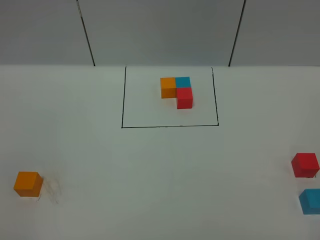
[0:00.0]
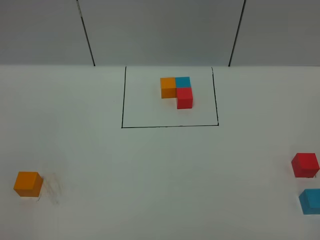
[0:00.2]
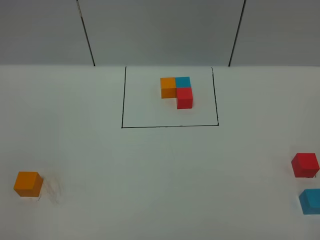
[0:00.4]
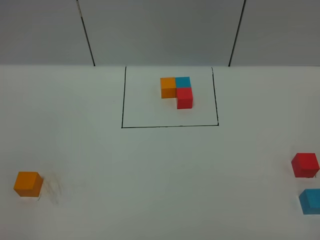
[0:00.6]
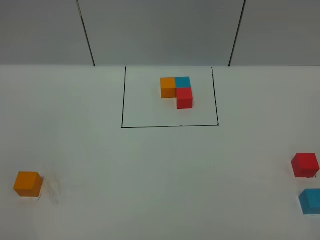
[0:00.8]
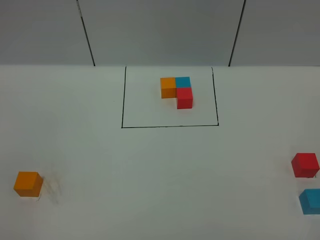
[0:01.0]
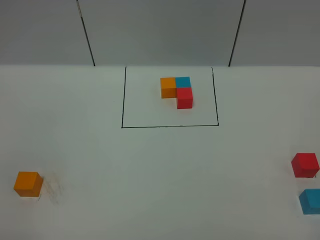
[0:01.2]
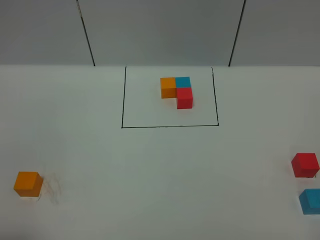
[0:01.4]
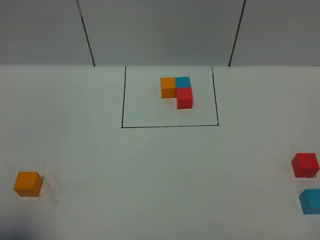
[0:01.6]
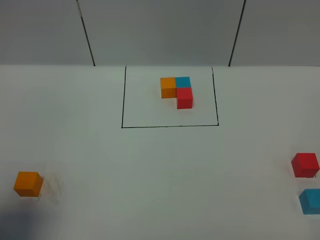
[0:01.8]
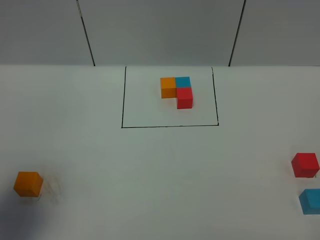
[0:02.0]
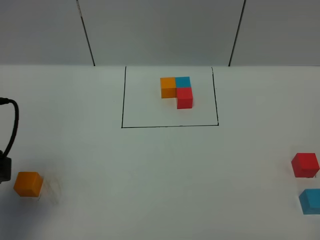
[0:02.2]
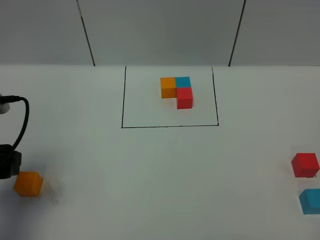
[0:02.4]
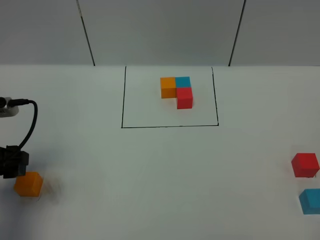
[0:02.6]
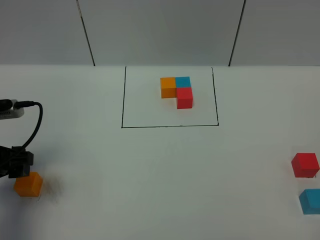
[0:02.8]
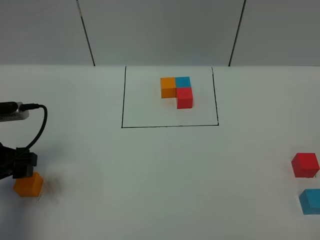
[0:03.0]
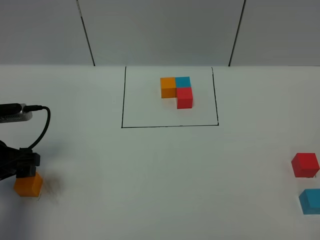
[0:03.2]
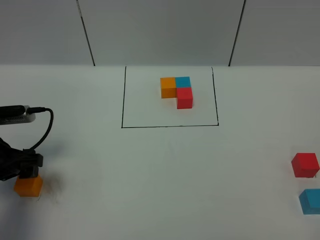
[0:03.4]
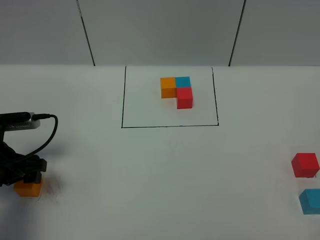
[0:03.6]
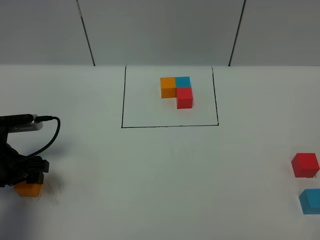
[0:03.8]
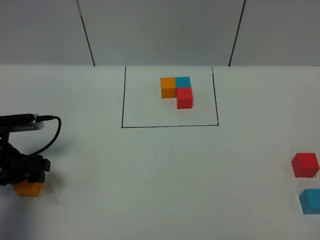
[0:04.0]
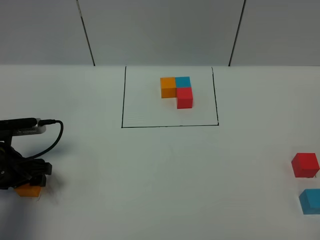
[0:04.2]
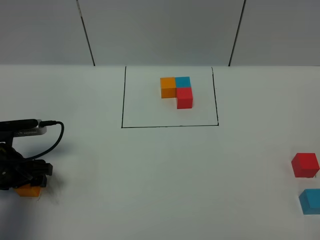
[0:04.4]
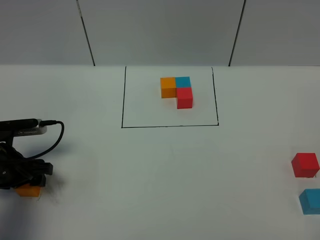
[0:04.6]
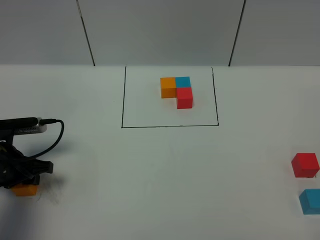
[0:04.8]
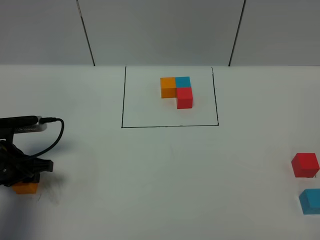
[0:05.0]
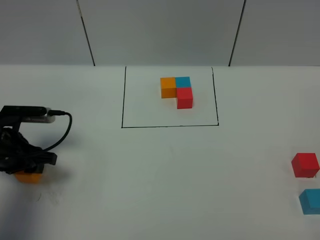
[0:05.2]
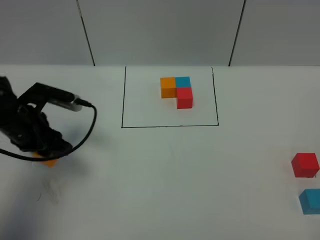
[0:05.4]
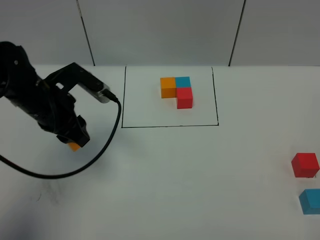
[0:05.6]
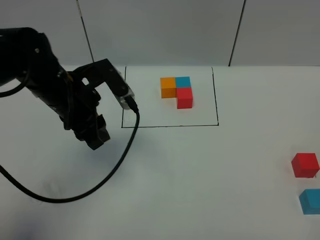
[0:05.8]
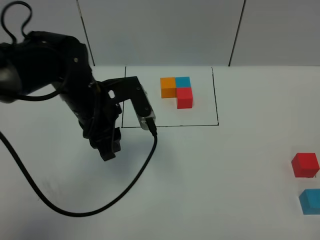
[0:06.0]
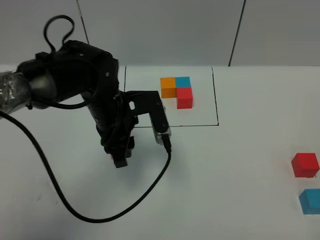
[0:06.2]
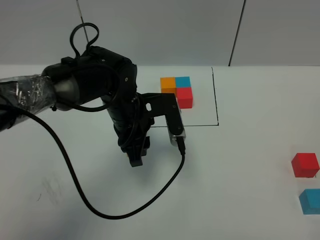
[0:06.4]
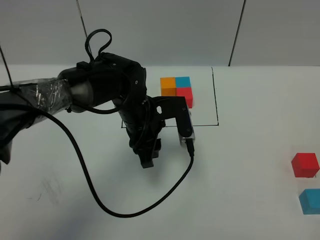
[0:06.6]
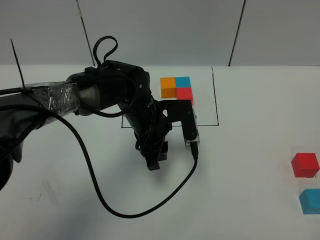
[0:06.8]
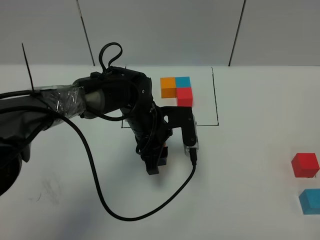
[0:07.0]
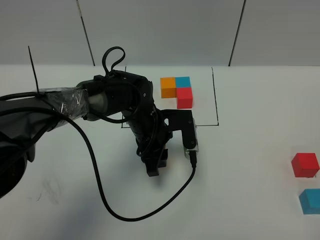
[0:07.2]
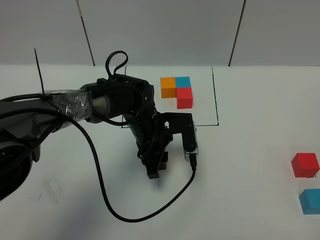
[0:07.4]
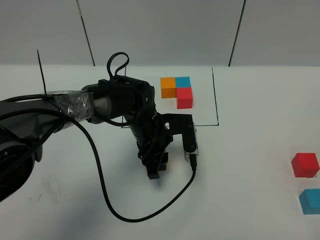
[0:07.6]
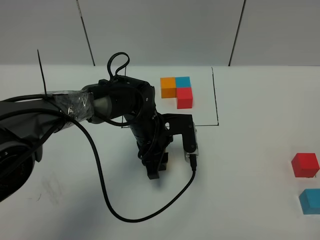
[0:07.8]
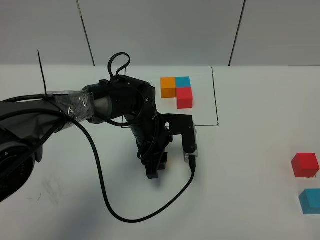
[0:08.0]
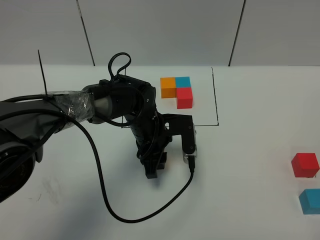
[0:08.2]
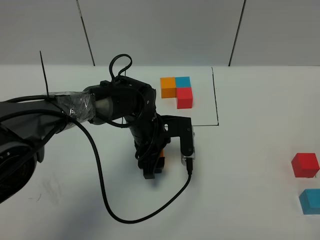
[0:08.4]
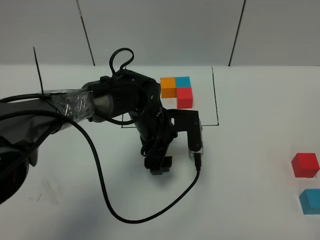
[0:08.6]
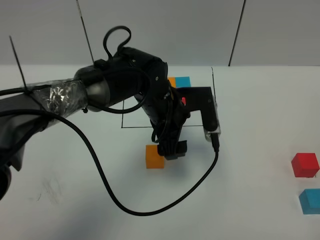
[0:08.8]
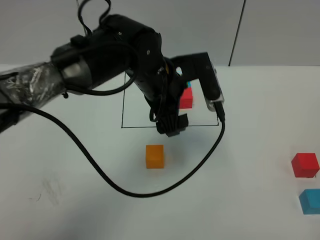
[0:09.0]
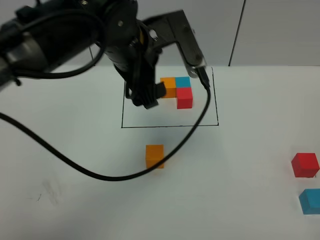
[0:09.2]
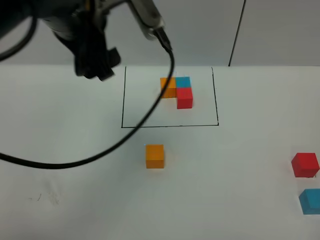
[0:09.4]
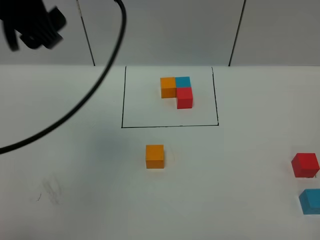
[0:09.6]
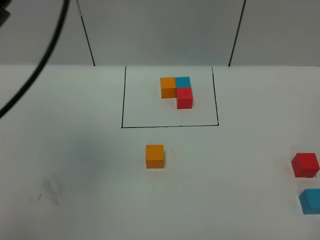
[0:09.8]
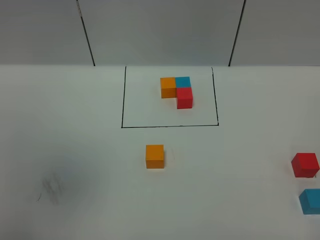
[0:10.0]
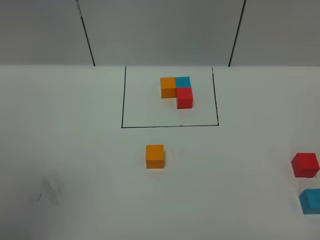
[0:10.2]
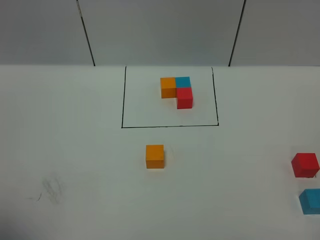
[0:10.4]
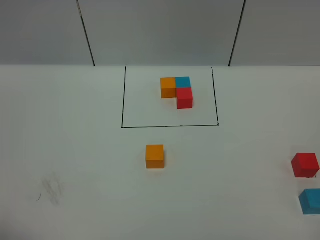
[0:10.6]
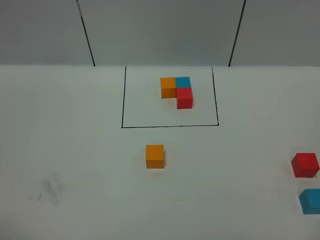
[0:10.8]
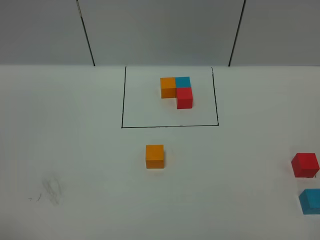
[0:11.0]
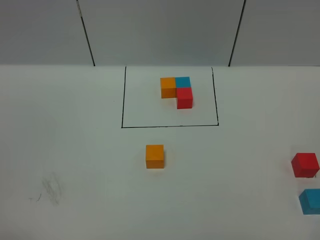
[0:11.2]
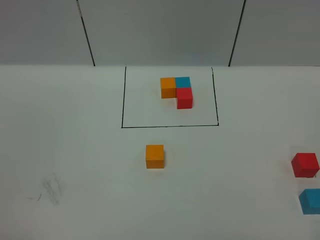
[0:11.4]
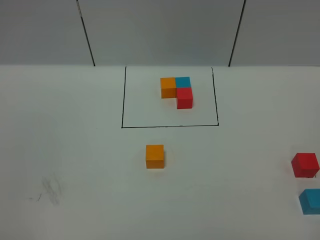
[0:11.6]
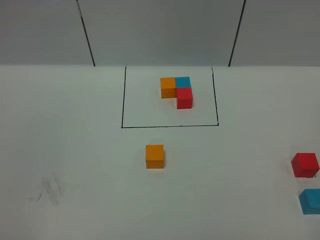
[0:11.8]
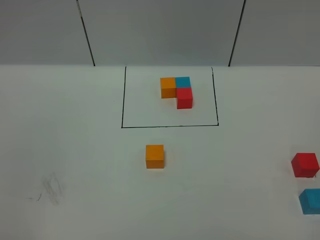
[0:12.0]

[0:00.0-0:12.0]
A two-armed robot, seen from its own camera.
Task of the whole recording: According to the building block template in front, assemble the scattered blocks together.
Step, 0:02.0 to 0:08.4: Put the orange cube in the center of the table.
0:00.0 to 0:01.6: The left gripper goes about 10 cm forward.
0:01.6 to 0:03.0: The left gripper heads forward and downward, covering some 20 cm.
0:03.0 to 0:04.4: The left gripper heads downward, covering some 5 cm.
0:04.4 to 0:06.0: The left gripper is displaced to the right and upward by about 20 cm, and closes its fingers.
0:06.0 to 0:07.6: The left gripper shifts approximately 15 cm downward and to the right.
0:07.6 to 0:09.0: The left gripper is displaced upward by approximately 15 cm, and opens up.
0:09.0 to 0:10.4: The left gripper moves to the left, backward and upward, about 50 cm.

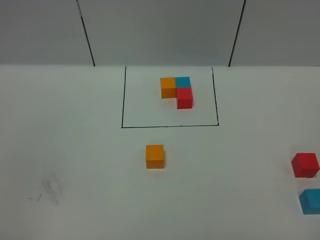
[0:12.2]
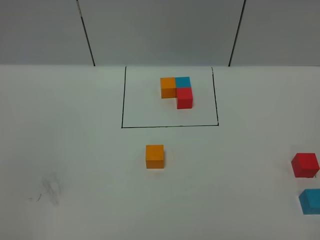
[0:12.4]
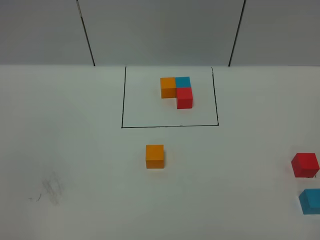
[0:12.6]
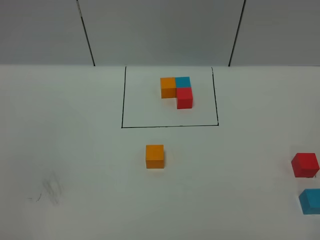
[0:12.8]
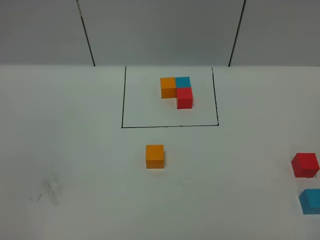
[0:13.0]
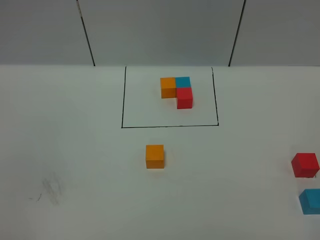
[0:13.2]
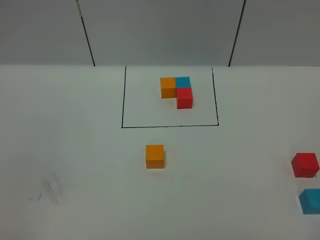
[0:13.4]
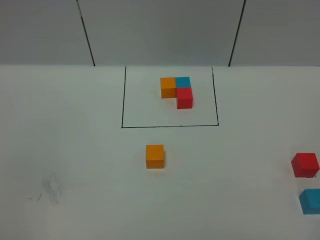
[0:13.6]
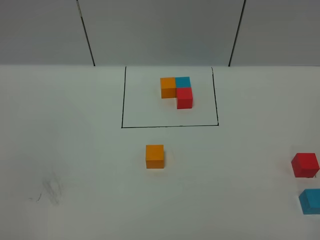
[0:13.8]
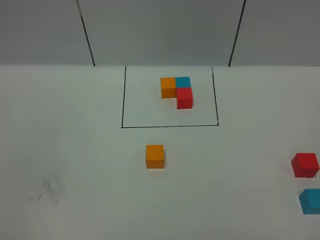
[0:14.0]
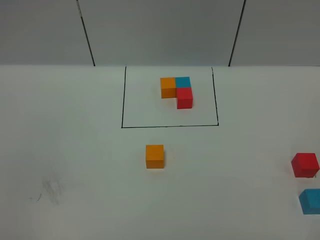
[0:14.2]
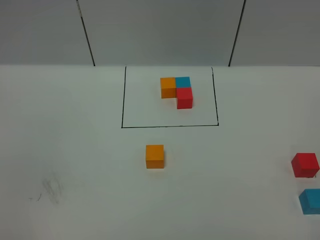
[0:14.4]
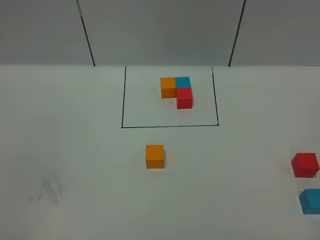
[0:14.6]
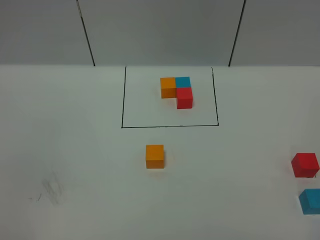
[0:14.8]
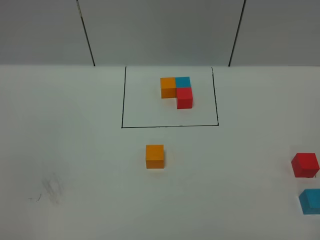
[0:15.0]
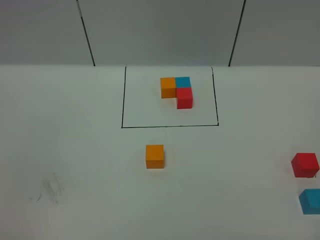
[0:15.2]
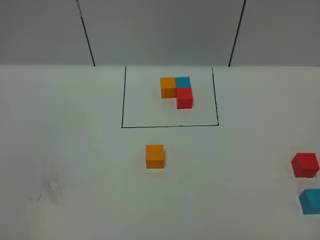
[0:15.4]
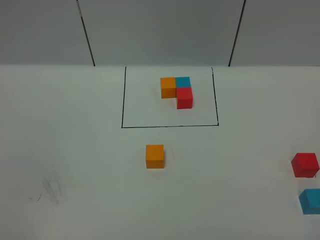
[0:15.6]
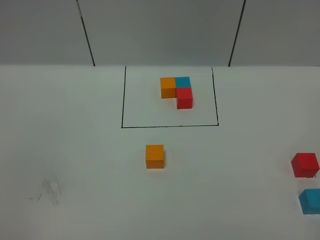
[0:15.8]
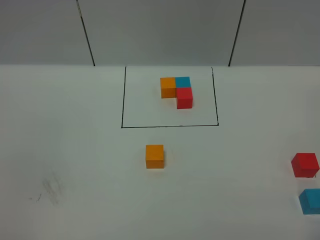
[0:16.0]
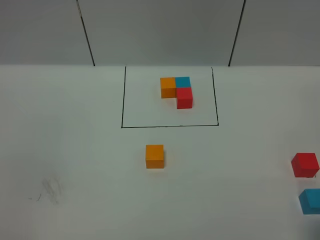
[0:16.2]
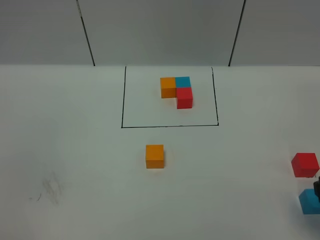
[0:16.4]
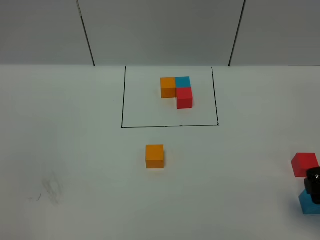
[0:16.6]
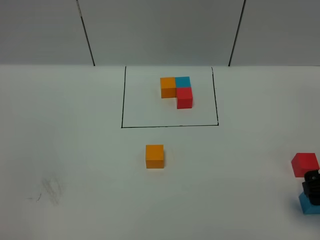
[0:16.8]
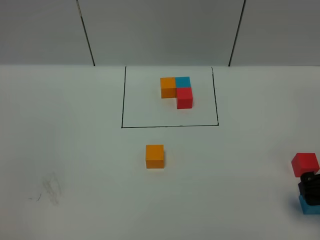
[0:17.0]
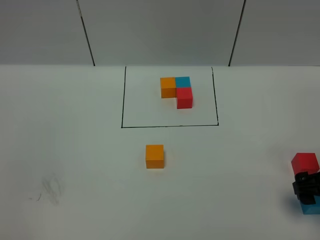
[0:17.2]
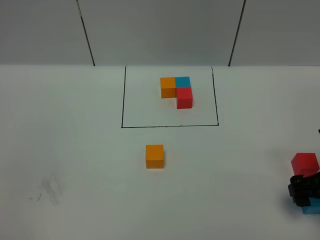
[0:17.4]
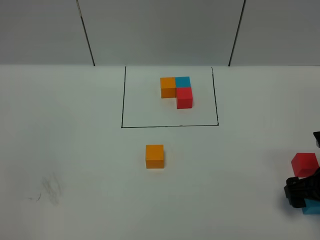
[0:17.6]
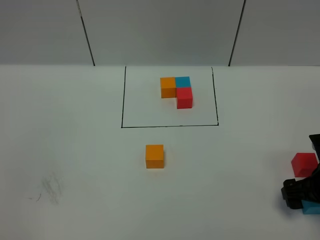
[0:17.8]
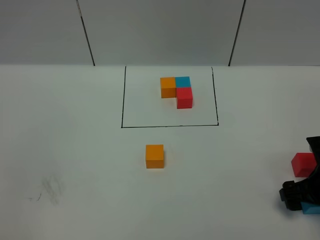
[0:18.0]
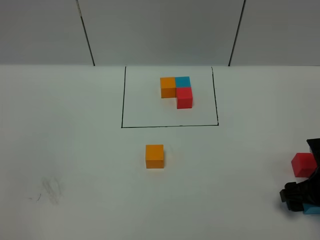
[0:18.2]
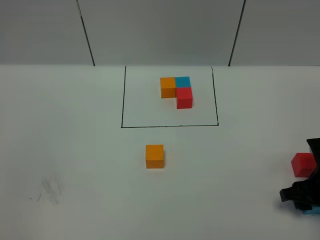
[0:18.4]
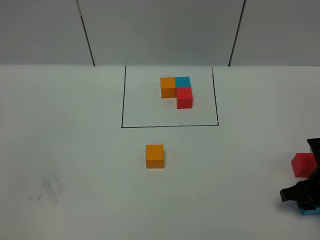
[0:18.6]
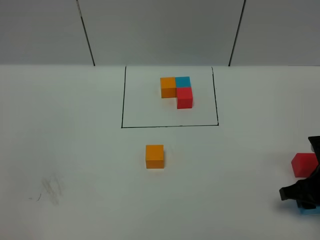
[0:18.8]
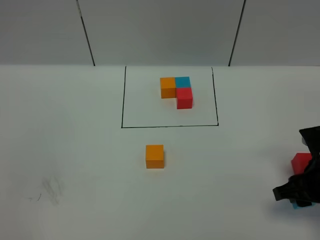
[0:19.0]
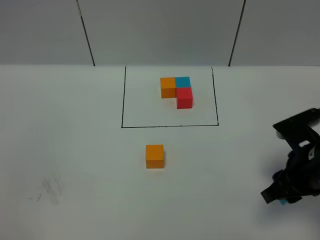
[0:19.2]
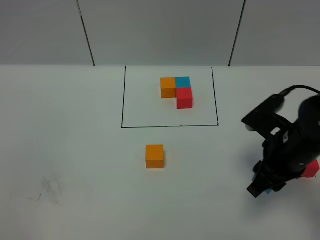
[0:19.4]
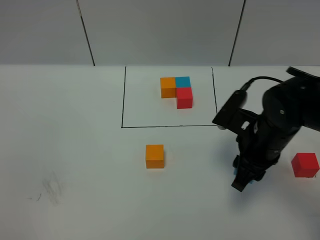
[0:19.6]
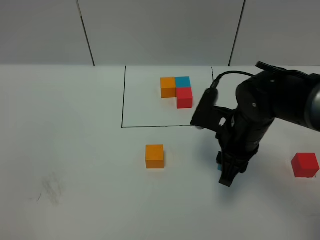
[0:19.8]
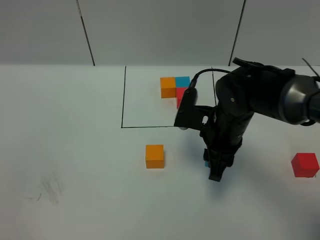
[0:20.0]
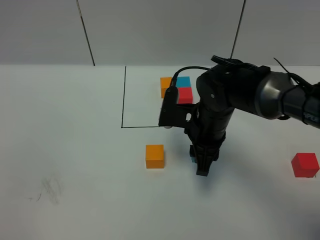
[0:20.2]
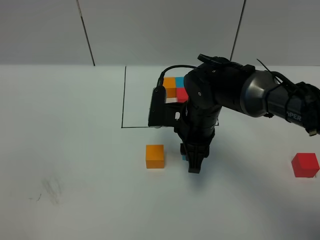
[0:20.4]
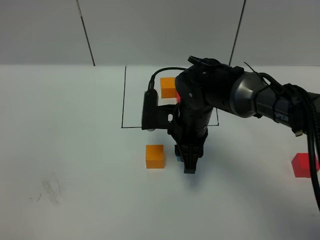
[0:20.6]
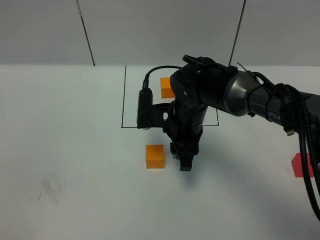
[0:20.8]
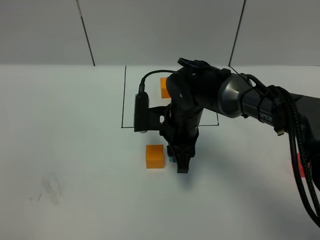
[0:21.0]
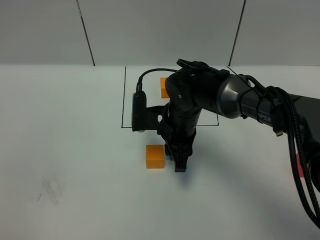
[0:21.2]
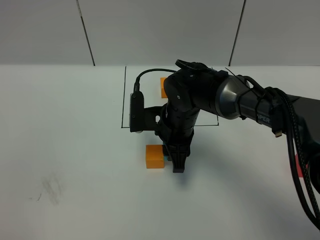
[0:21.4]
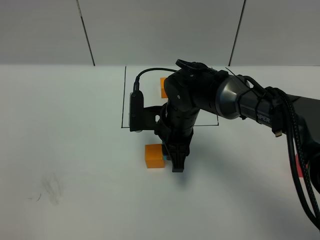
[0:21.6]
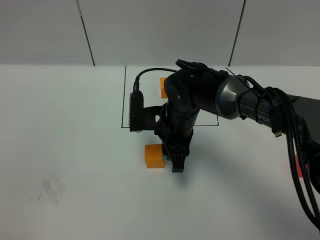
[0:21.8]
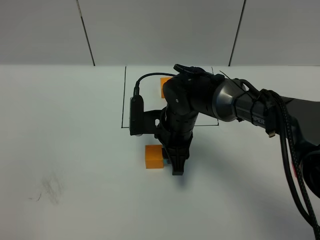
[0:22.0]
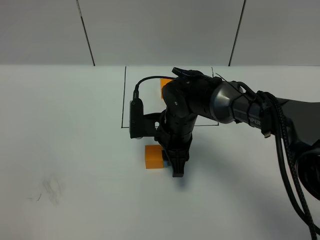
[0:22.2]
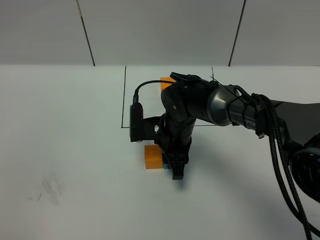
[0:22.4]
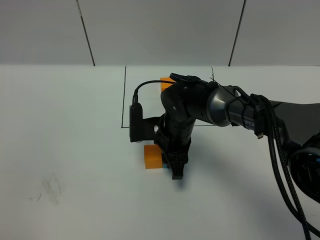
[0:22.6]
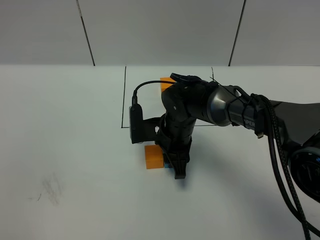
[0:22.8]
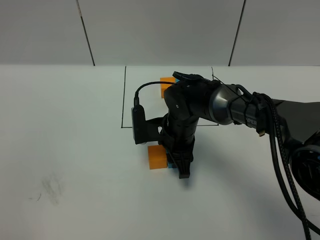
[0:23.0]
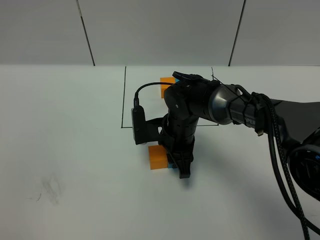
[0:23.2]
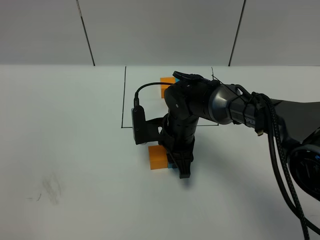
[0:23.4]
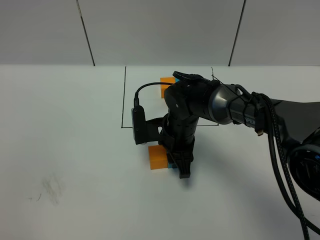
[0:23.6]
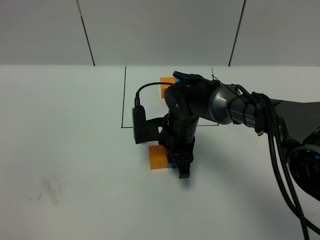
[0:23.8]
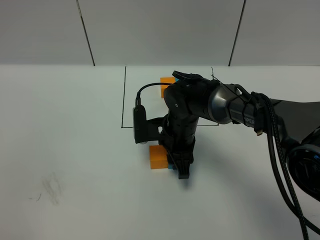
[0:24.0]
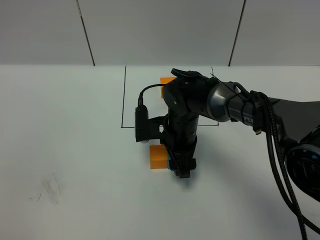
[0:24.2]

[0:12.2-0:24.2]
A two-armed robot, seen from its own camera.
Task of the whole recording: According to the building block template in front, assemble the scattered blocks together.
0:15.2 to 0:16.6: The right gripper is displaced forward by approximately 20 cm, and opens its fingers.
0:16.6 to 0:18.2: The right gripper is displaced downward and forward by roughly 10 cm.
0:18.2 to 0:19.8: The right gripper travels to the left and upward by approximately 20 cm, and closes.
0:19.8 to 0:21.2: The right gripper is displaced to the left by some 10 cm.
0:21.2 to 0:22.6: The grippers make only small movements.
0:22.6 to 0:24.2: The right gripper opens its fingers.
